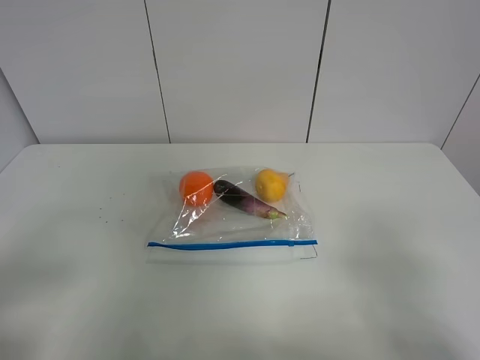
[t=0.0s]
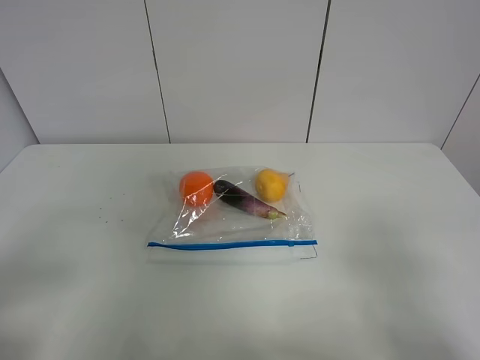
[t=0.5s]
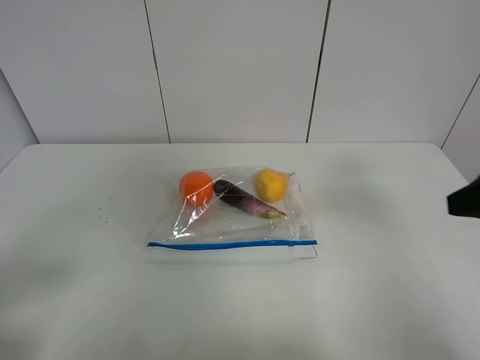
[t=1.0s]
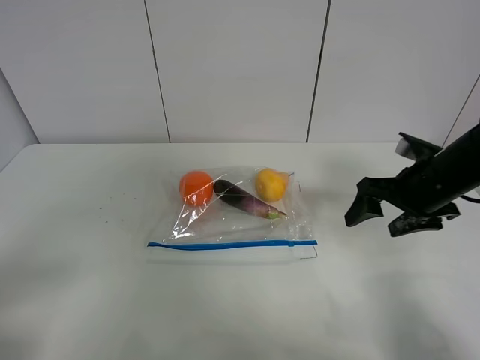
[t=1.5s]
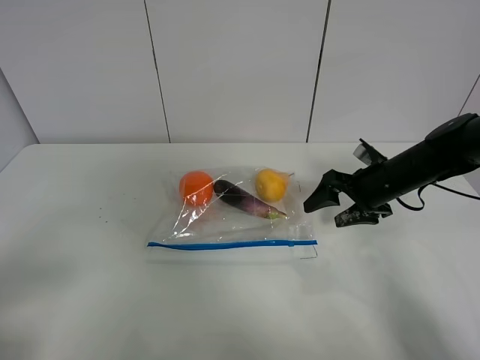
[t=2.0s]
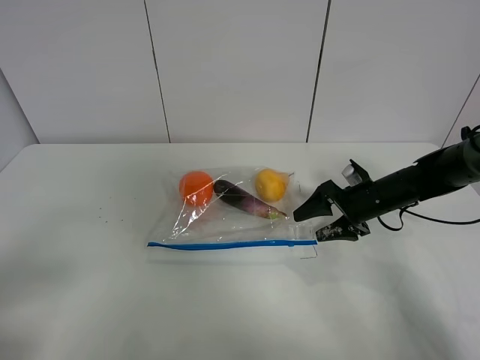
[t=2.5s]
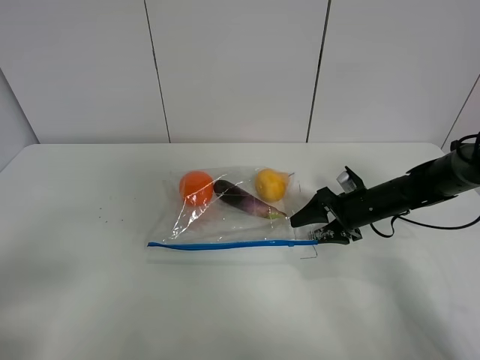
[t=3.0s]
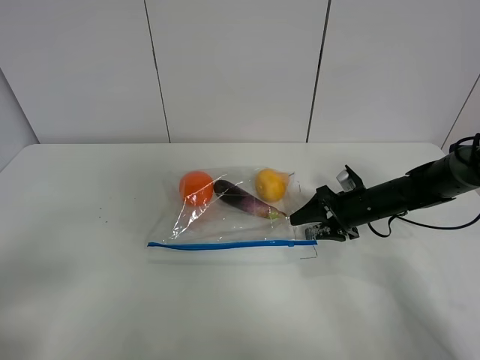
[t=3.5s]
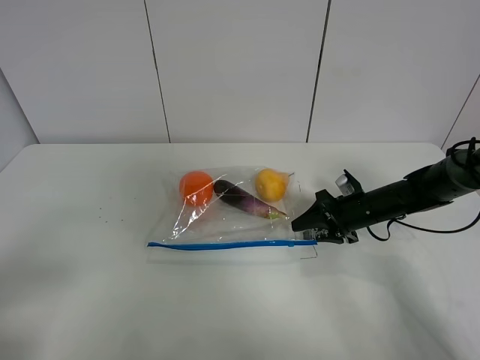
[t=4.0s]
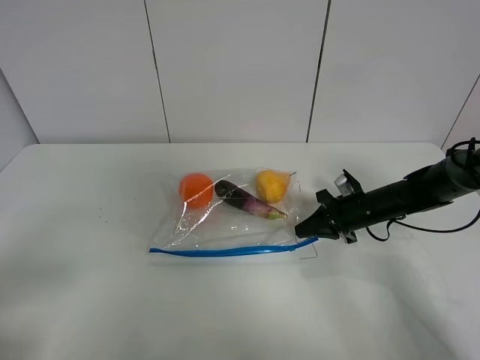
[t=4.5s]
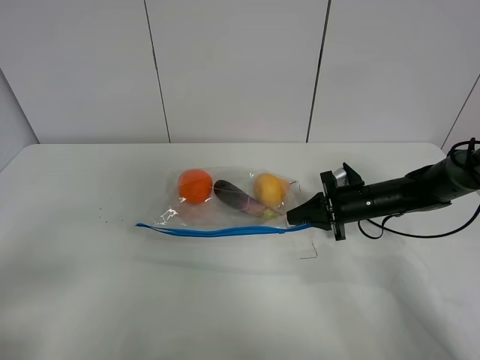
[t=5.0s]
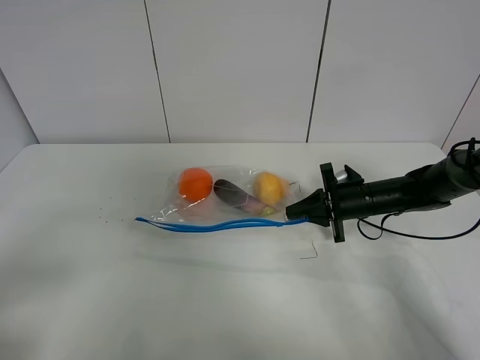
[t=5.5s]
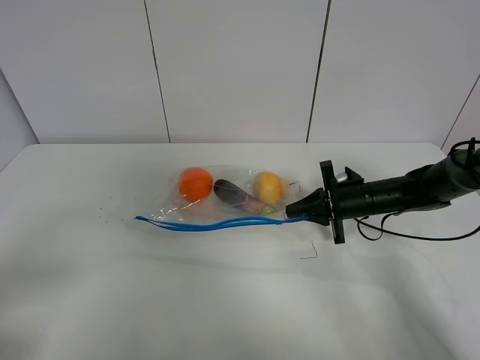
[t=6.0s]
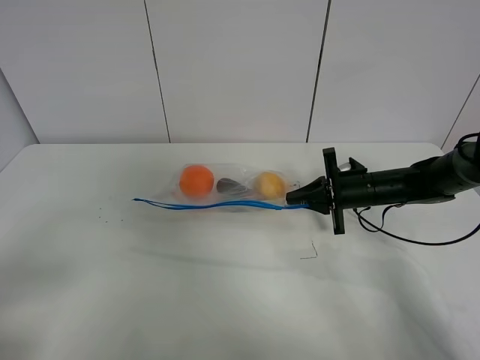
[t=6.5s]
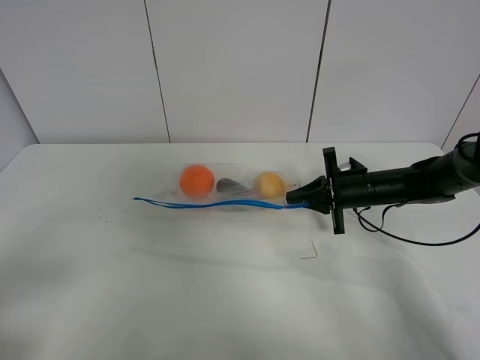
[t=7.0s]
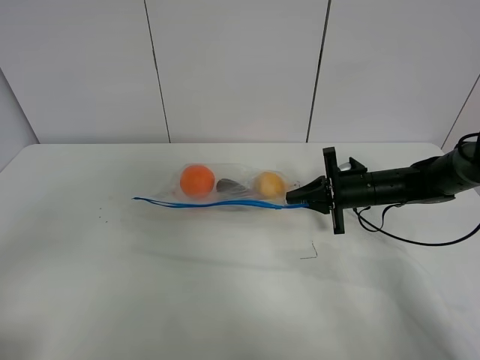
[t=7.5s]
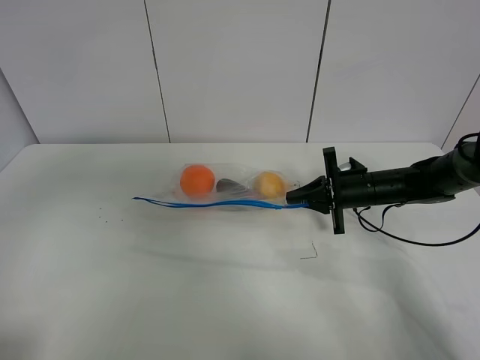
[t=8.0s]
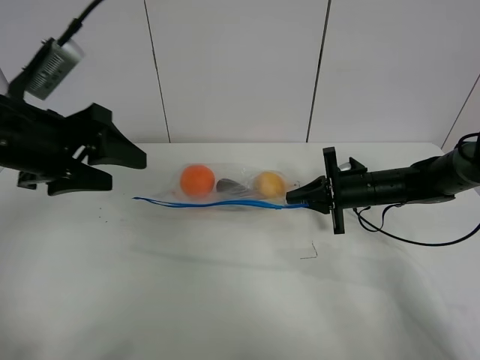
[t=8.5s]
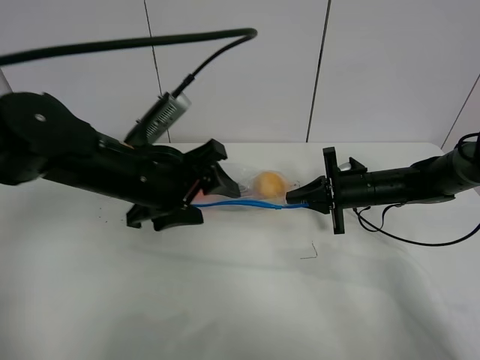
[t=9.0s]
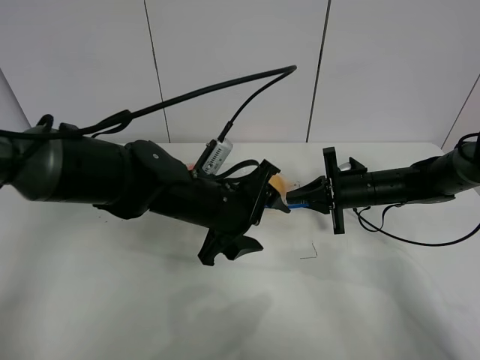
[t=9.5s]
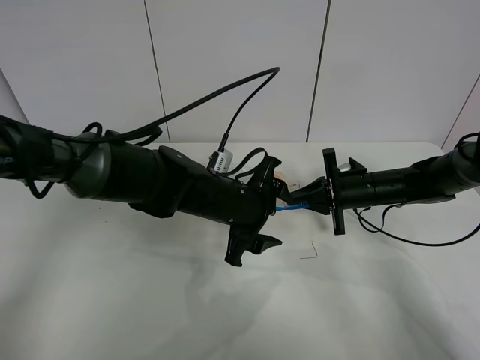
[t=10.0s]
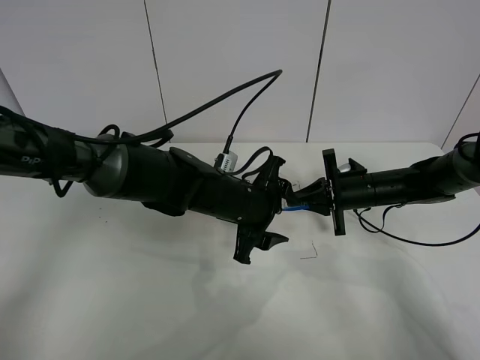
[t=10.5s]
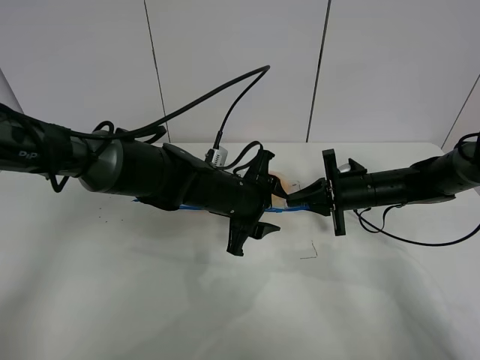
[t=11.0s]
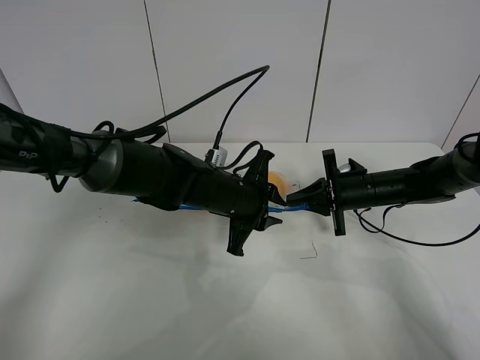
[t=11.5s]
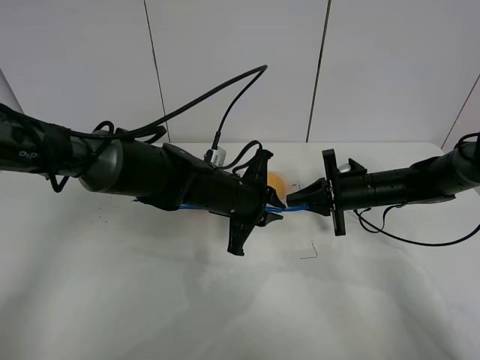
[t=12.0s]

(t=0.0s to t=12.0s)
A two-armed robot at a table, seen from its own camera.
Step, t=0.0s - t=4.0s: Grasp the fruit bag with right gripper.
Step, t=4.5s - t=6.5s: Lift the fruit bag with your right gripper.
t=0.0s - t=2.0s: The right gripper heads forward, covering about 35 cm.
t=2.0s - t=4.0s: The right gripper shifts roughly 10 cm downward, and closes its fingers.
t=4.0s - t=6.0s: The right gripper closes up.
t=6.0s - t=8.0s: The left gripper moves forward and upward, approximately 20 cm.
t=8.0s - t=10.0s: The left gripper goes about 35 cm to the right, downward and forward.
t=10.0s - t=12.0s: The left gripper closes up.

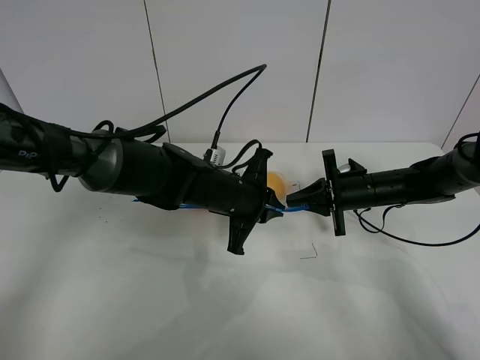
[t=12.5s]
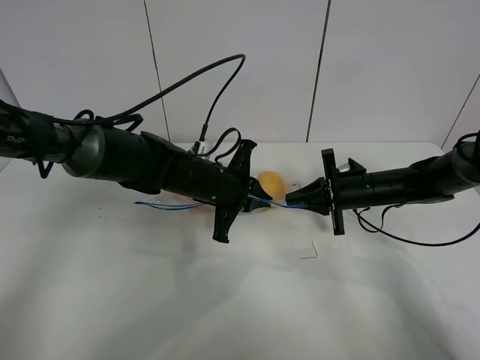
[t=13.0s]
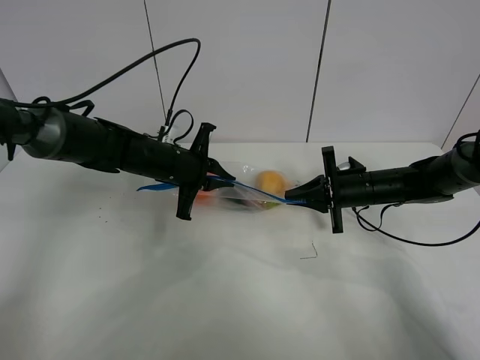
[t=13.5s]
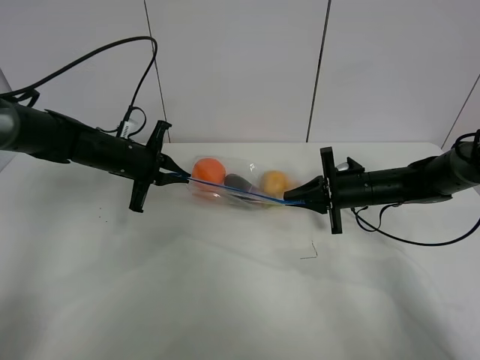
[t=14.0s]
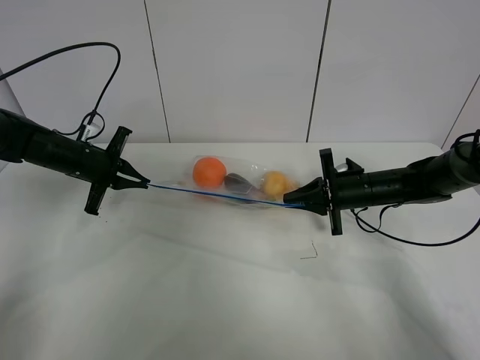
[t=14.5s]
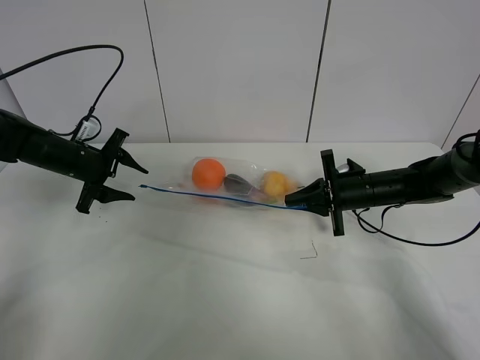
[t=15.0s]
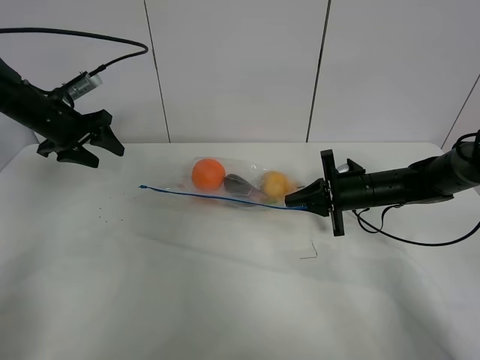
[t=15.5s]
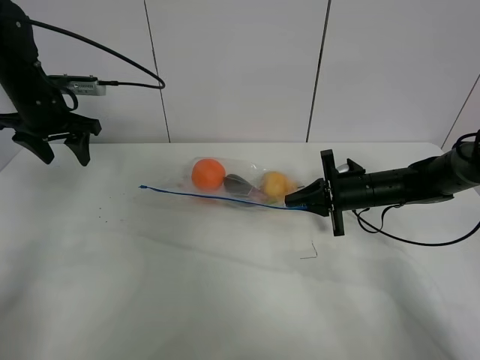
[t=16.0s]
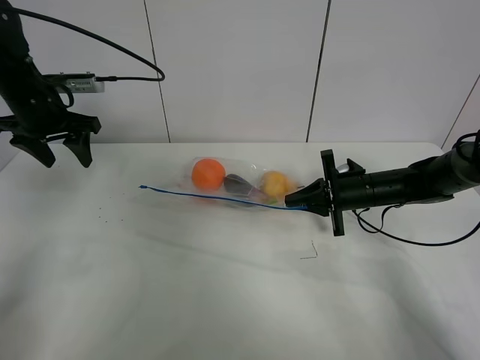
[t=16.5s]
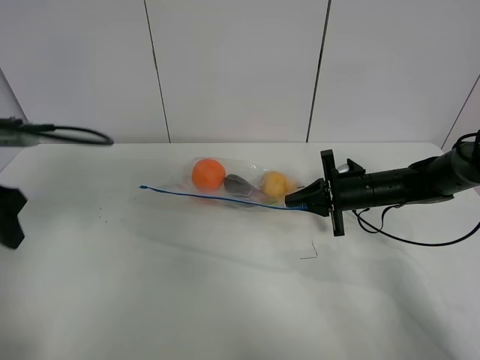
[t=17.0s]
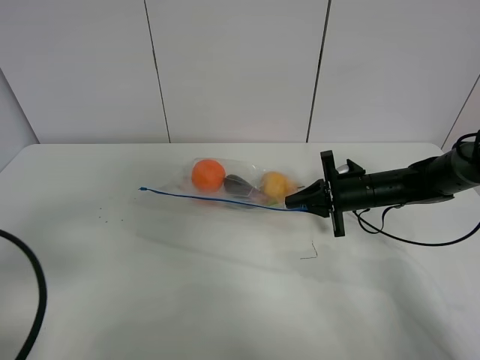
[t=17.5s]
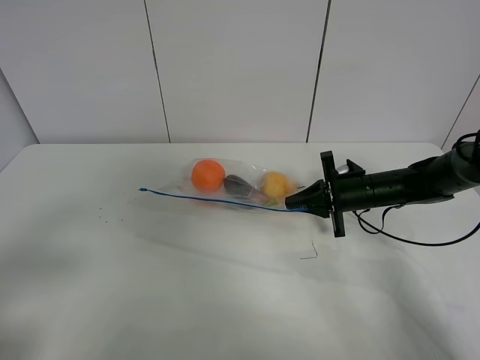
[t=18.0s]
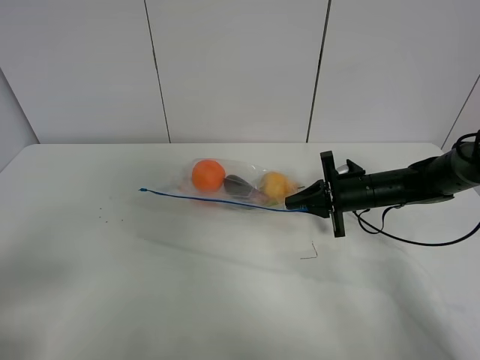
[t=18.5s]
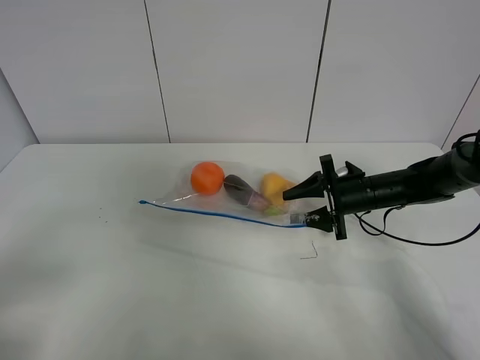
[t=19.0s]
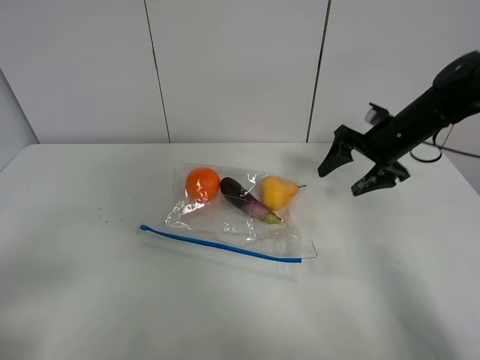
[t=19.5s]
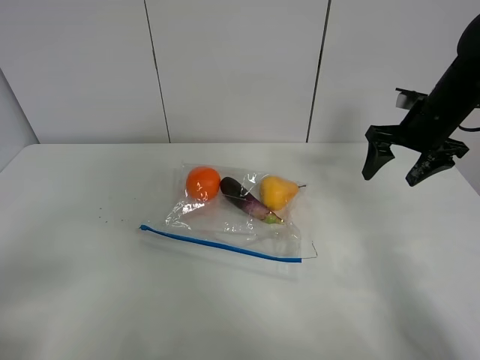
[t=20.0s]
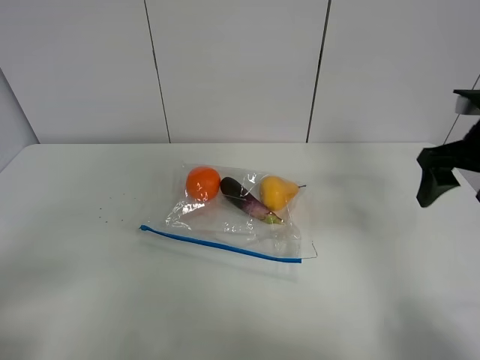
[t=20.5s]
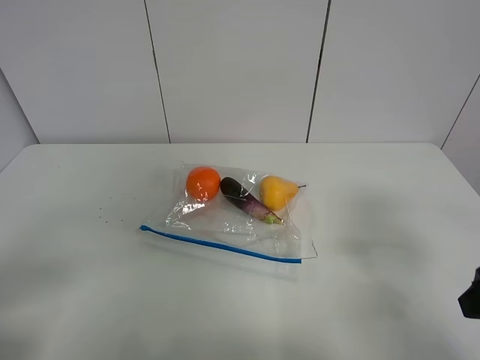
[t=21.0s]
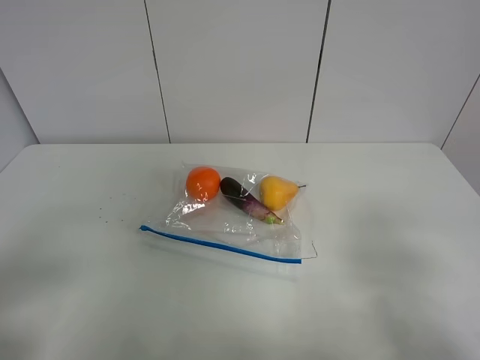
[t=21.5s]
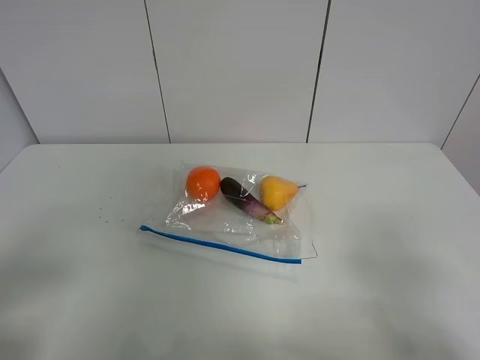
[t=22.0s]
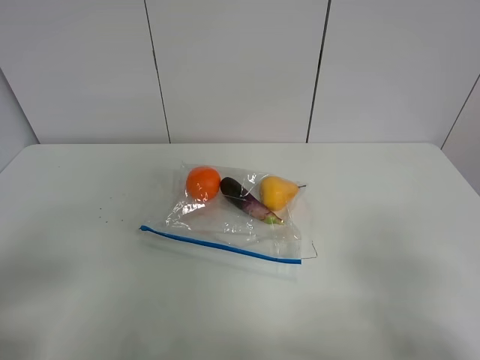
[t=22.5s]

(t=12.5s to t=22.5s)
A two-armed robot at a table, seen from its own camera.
Step, t=12.5s - t=15.0s: Pull the fruit bag with left gripper.
Step, t=15.5s - t=19.5s: Place the fruit bag with right gripper.
t=12.5s - t=14.5s: The left gripper shifts approximately 25 cm to the left.
t=14.5s - t=16.5s: The left gripper heads upward, covering approximately 15 cm, and opens its fingers.
t=16.5s - t=18.5s: The left gripper moves backward, approximately 40 cm.
t=18.5s - t=20.5s: The right gripper is displaced upward, backward and to the right by about 20 cm, and opens.
t=20.5s - t=22.5s: The right gripper heads backward, covering some 25 cm.

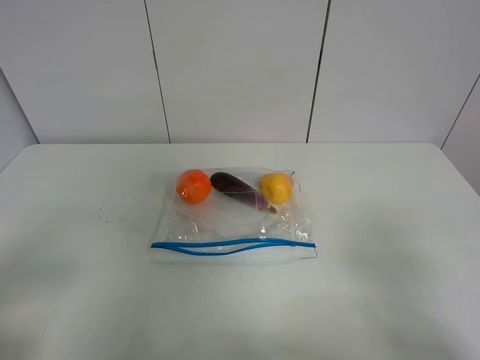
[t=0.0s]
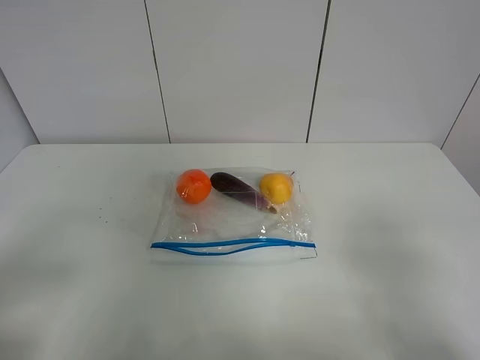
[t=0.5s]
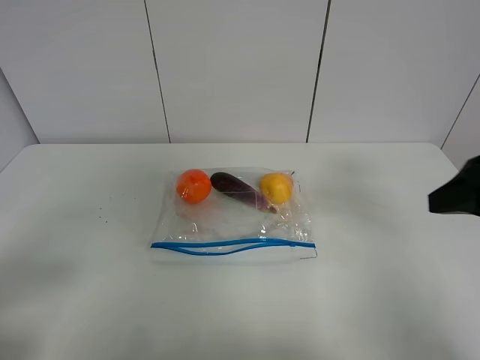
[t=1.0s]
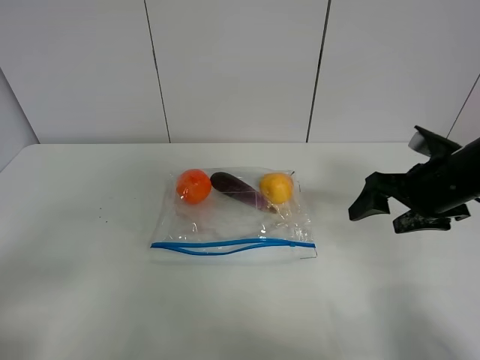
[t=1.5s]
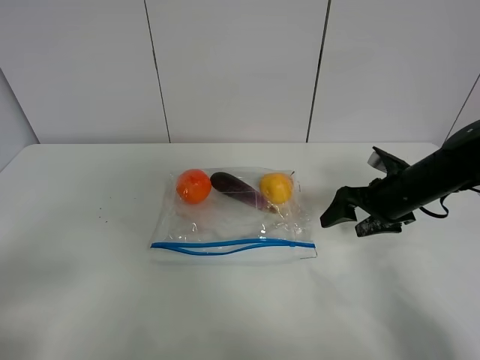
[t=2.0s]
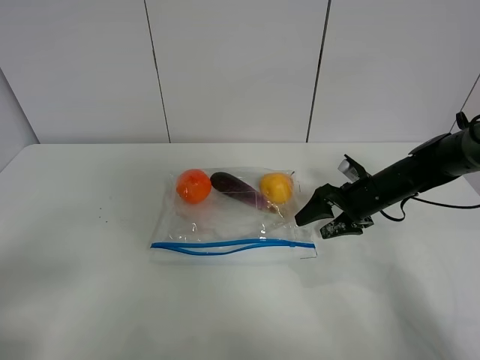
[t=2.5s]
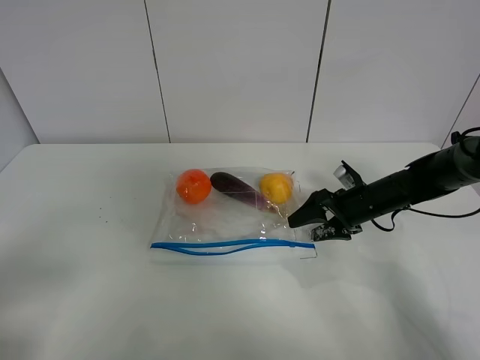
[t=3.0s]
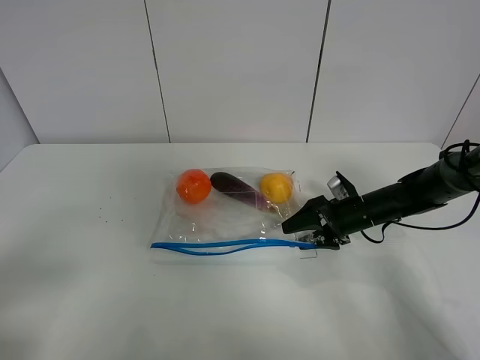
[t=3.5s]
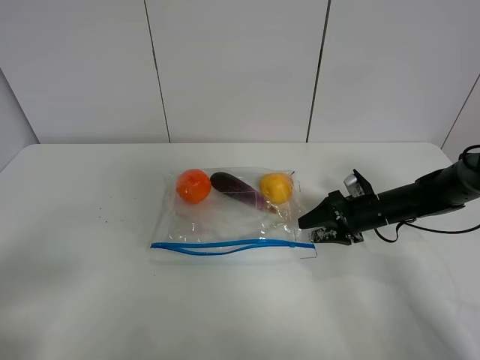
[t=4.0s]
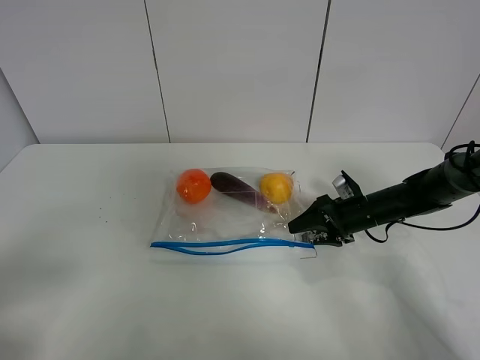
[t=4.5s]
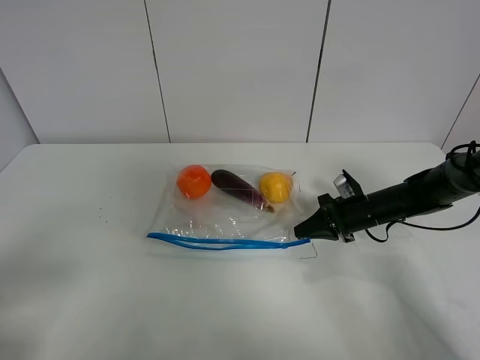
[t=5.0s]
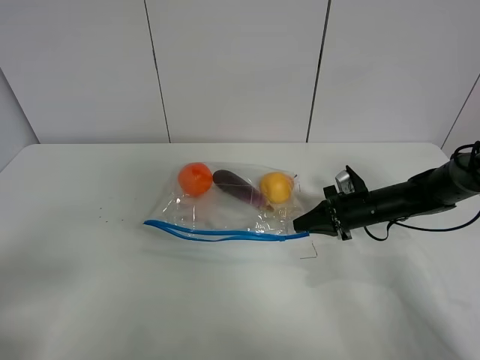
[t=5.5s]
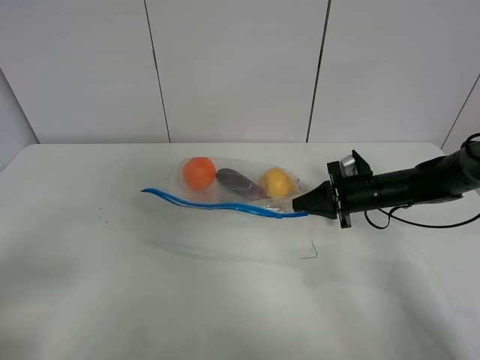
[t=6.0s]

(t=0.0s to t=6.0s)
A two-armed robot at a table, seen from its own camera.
Step, t=0.0s - t=4.5s: Grasp the fruit bag with right gripper.
t=0.0s - t=2.0s: The right gripper moves forward, about 35 cm.
t=2.0s - t=4.0s: The right gripper goes some 10 cm downward.
t=4.0s - t=6.0s: The right gripper changes place by roughly 5 cm, and closes its fingers.
